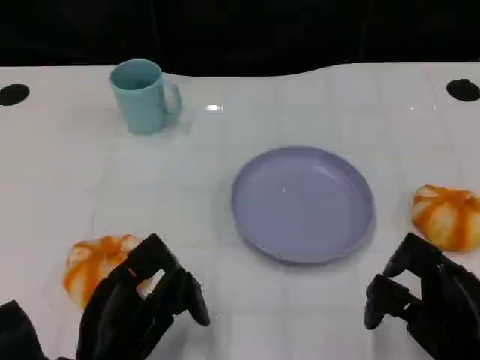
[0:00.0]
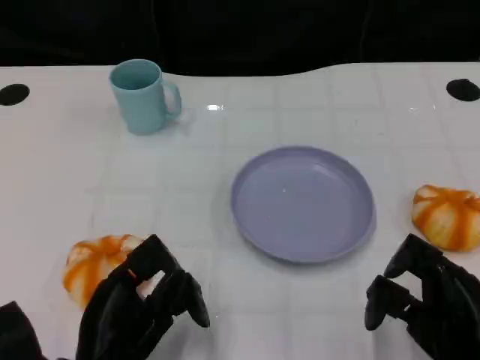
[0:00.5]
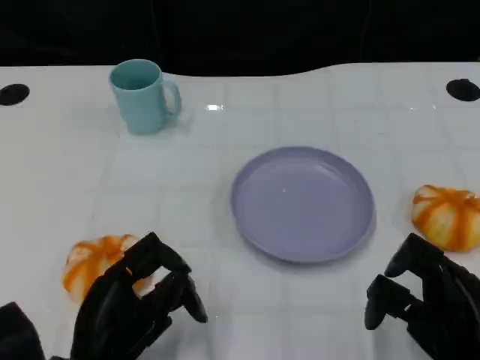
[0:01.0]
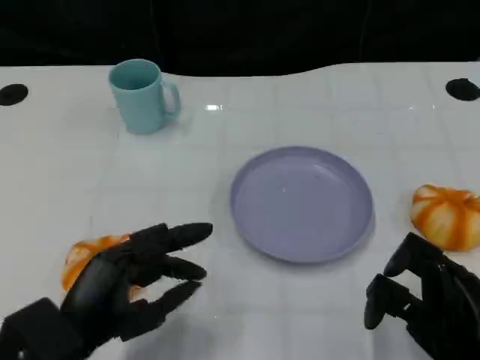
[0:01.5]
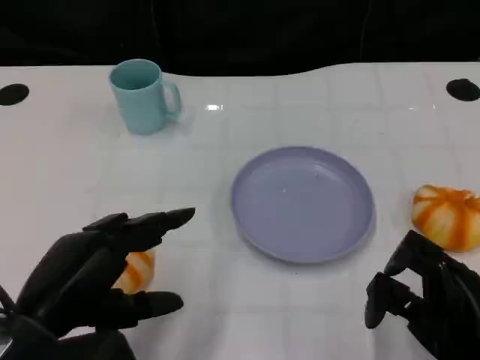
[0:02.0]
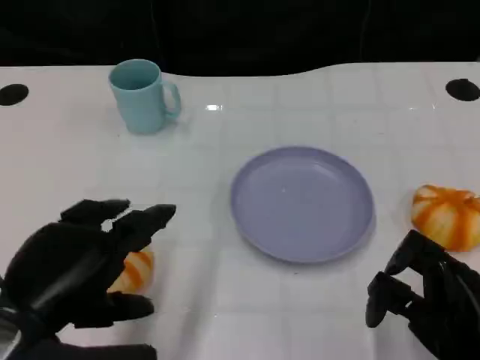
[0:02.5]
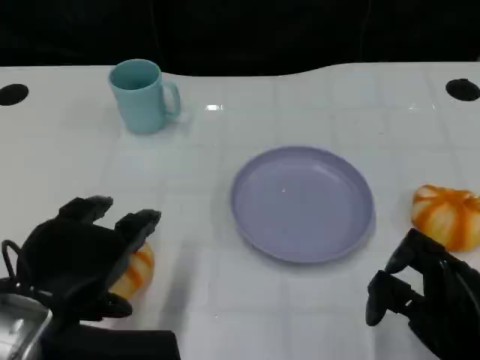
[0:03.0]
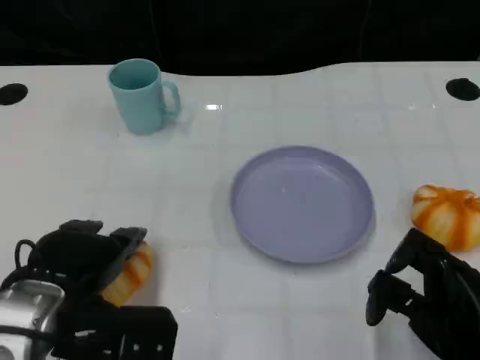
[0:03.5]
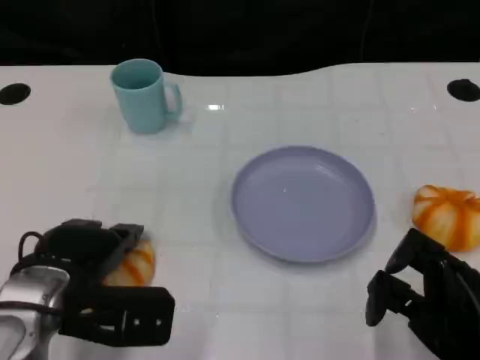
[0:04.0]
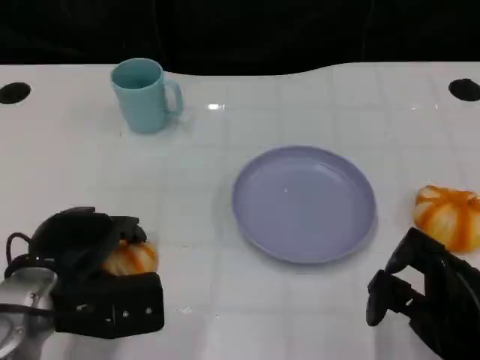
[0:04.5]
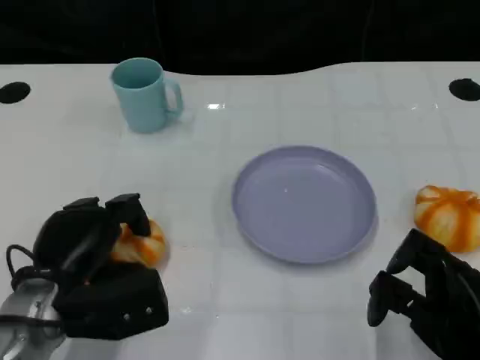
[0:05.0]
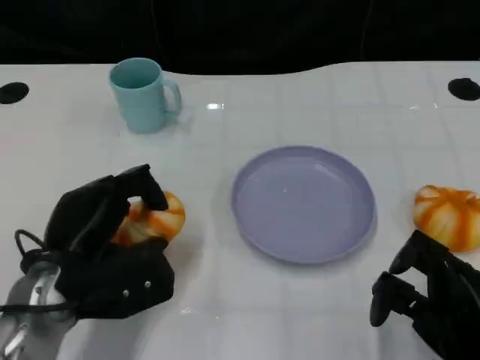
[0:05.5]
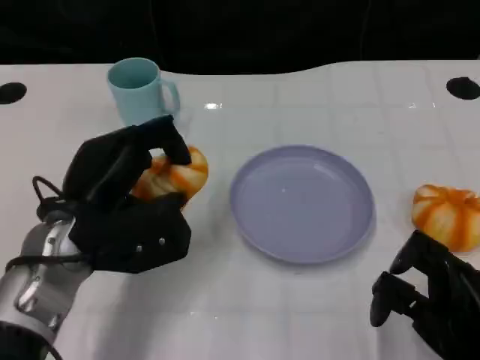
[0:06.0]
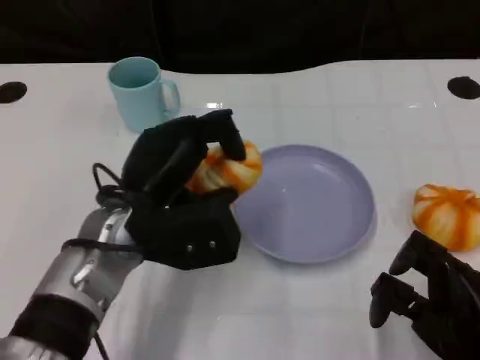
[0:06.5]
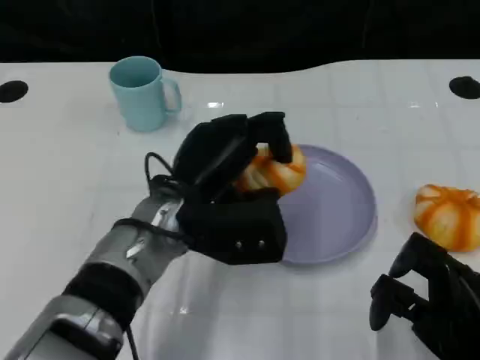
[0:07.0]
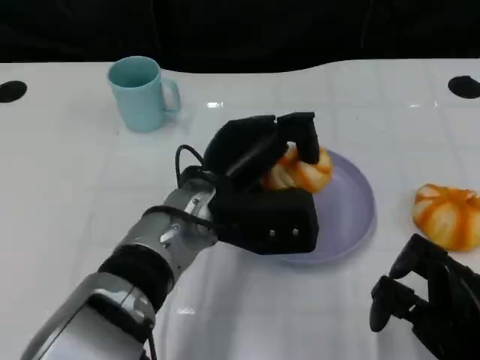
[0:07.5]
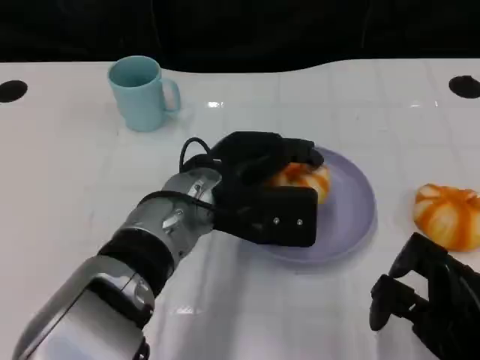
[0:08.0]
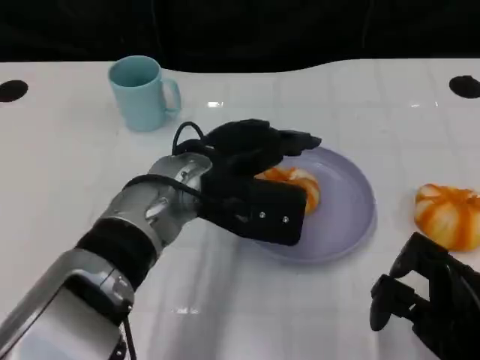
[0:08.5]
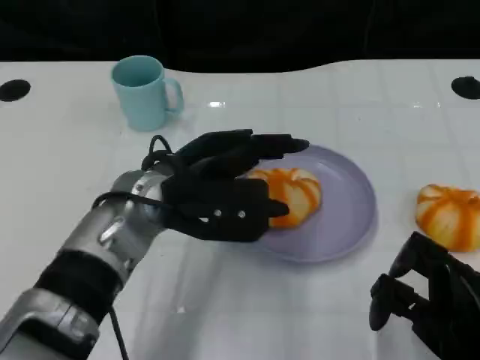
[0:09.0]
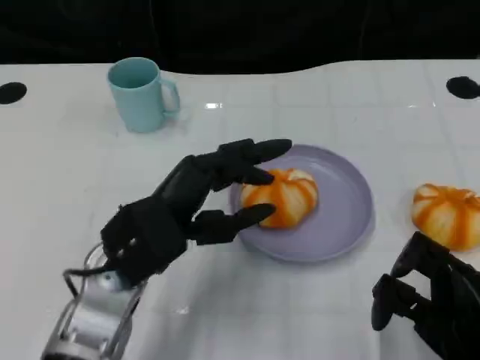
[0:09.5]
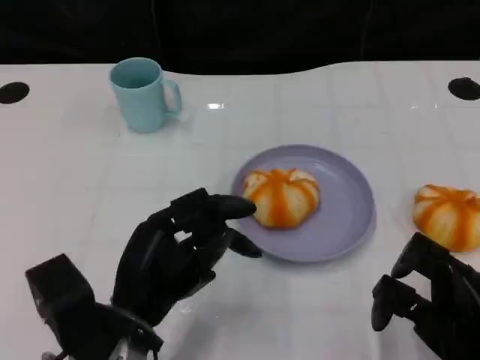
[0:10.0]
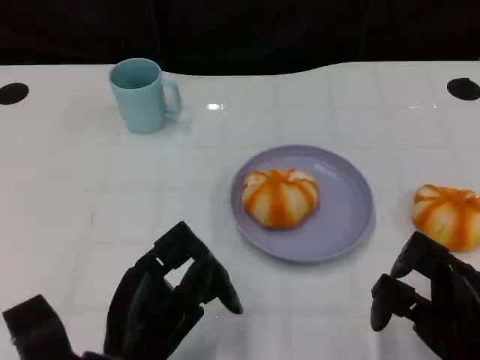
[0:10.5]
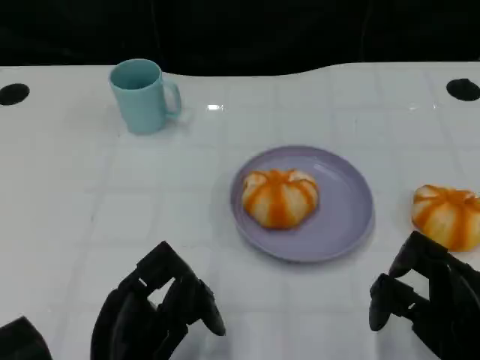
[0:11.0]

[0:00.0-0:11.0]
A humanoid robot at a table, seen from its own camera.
Task of the whole recording: Grasp the bread from the table and place it into the plate.
0:00.0 to 0:02.0: The left hand heads upward, covering roughly 10 cm.
0:02.0 to 0:03.5: The left hand travels forward by approximately 5 cm.
0:05.5 to 0:07.5: The left hand travels to the right by some 15 cm.
0:07.5 to 0:09.0: The left hand heads to the left, covering some 5 cm.
0:09.0 to 0:11.0: The left hand moves backward and downward, some 20 cm.

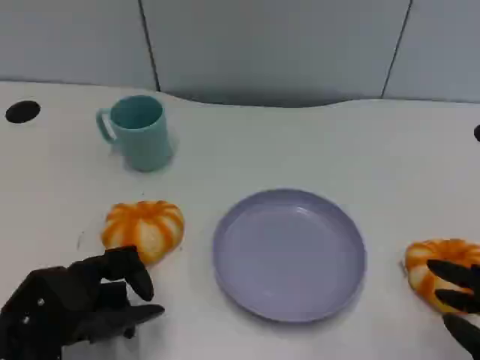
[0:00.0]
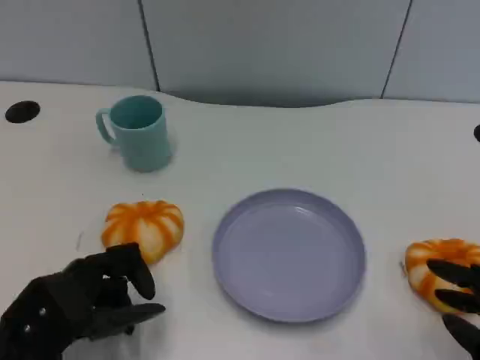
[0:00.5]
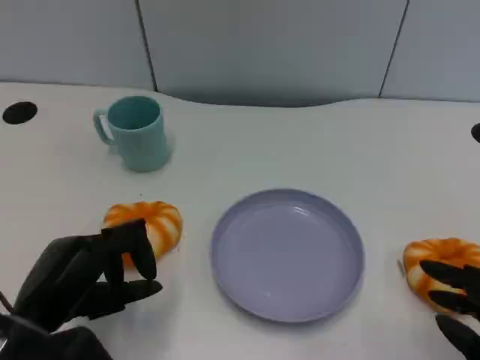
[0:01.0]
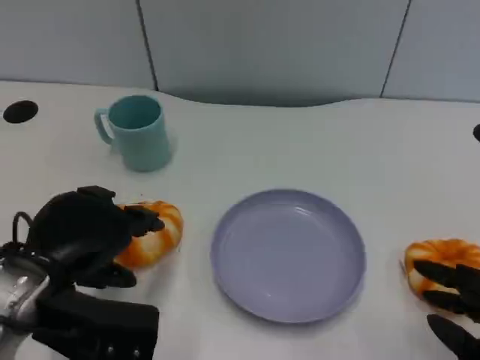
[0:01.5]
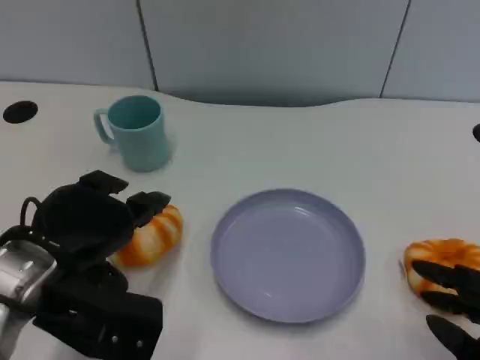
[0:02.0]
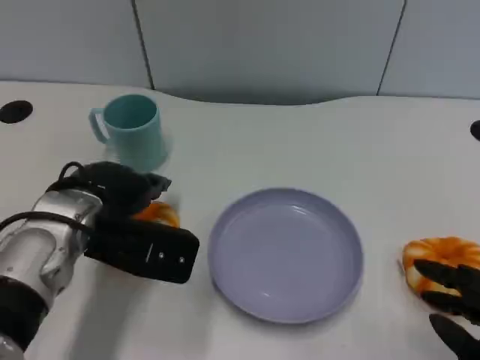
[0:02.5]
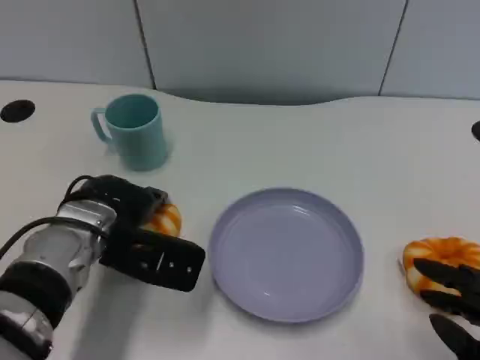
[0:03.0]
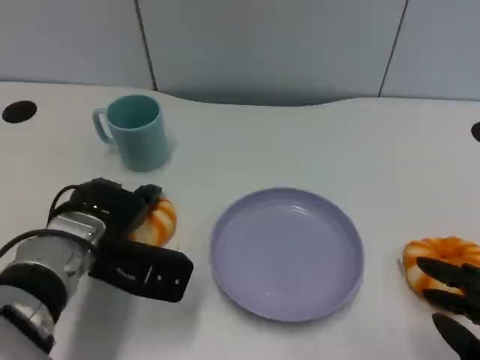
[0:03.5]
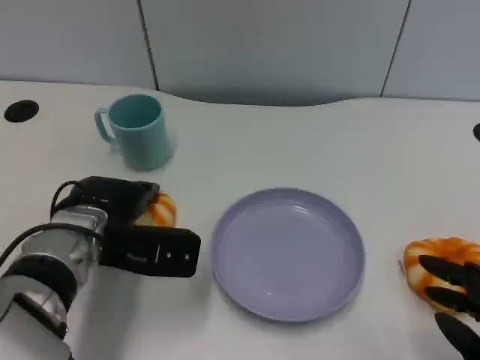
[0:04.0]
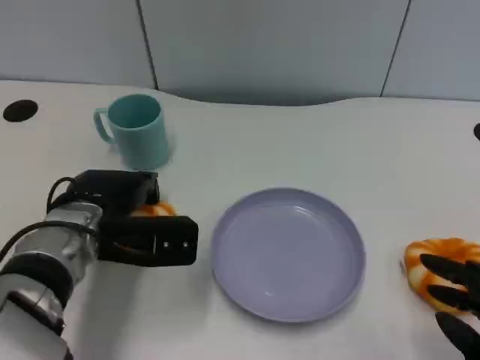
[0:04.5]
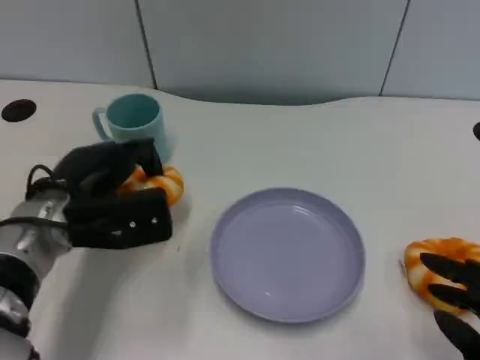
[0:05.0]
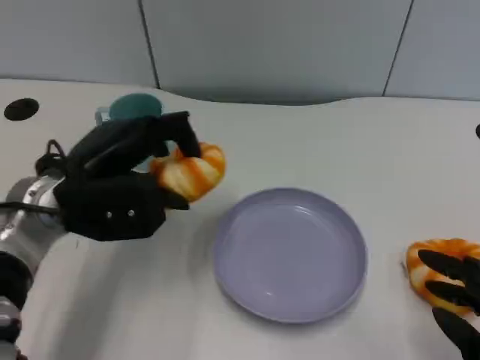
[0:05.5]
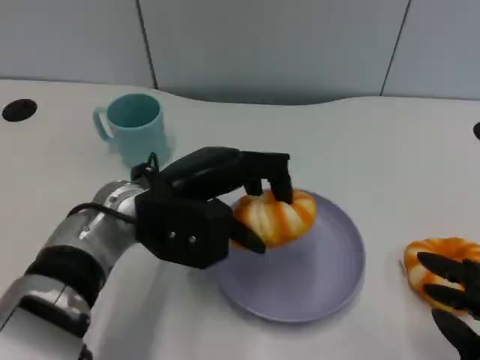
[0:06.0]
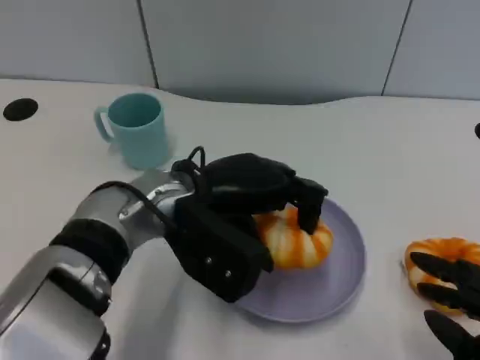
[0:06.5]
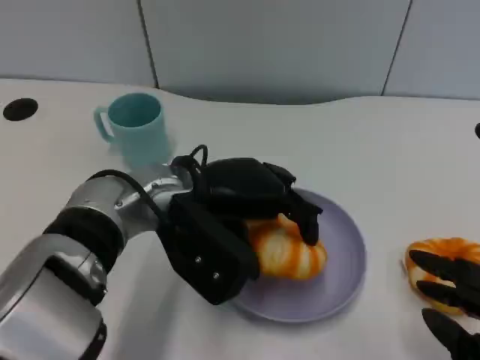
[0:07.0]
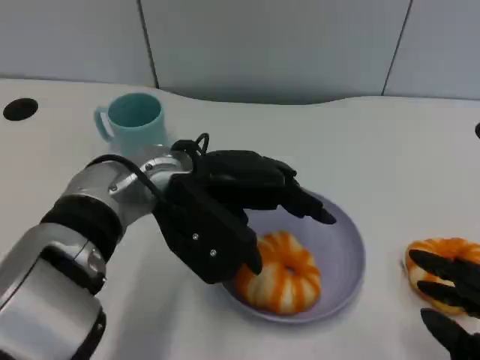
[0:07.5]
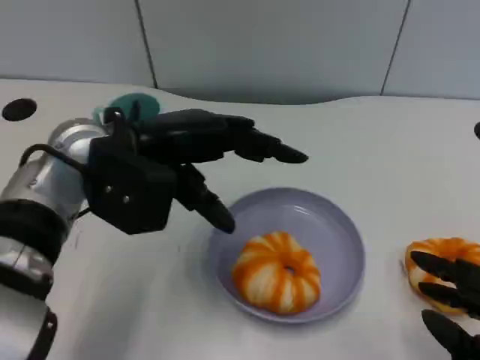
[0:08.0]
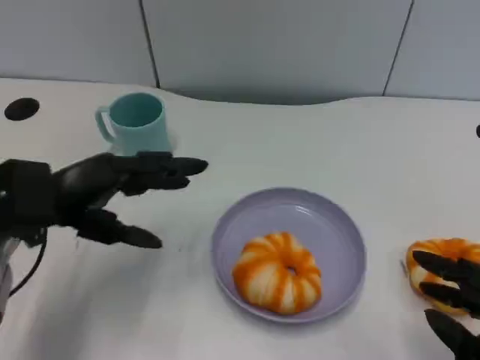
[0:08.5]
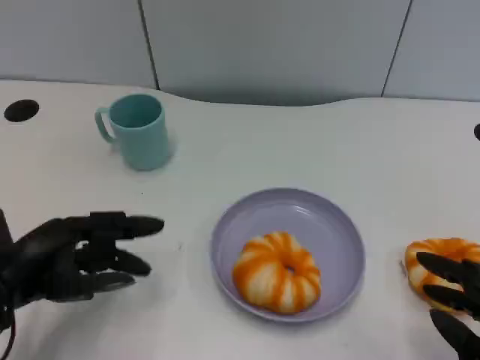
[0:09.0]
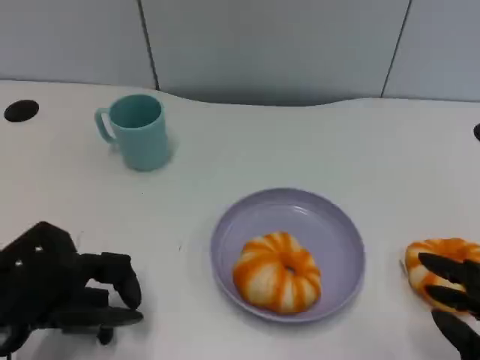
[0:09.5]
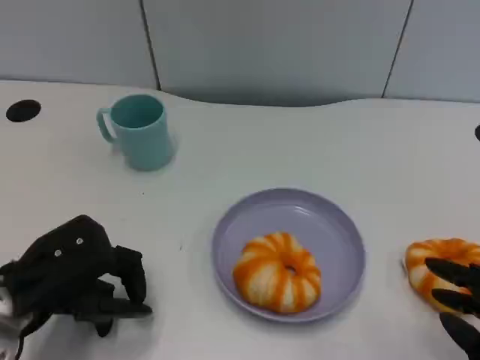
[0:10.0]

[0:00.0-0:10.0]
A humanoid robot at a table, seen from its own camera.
Task of the whole recording: Grasp the bread from the table and place it into the plate.
0:00.0 to 0:02.0: The left hand is displaced upward by approximately 10 cm.
0:02.0 to 0:04.0: The left hand shifts approximately 10 cm forward and downward.
0:04.0 to 0:06.0: The left hand shifts approximately 10 cm to the right and upward.
0:06.0 to 0:08.0: The left hand shifts some 5 cm upward.
0:08.0 to 0:10.0: The left hand travels downward, backward and to the left by roughly 15 cm.

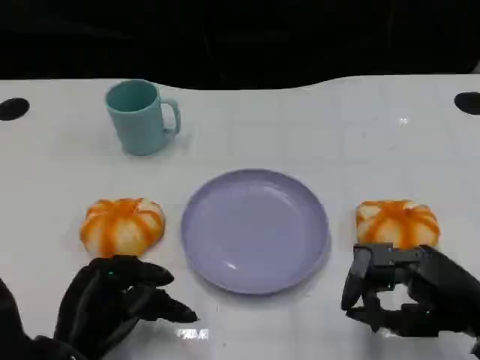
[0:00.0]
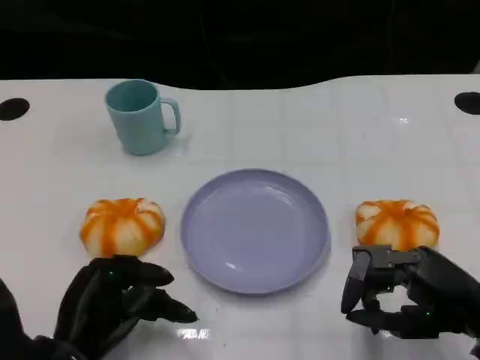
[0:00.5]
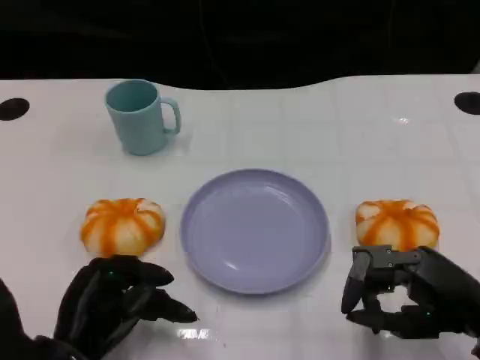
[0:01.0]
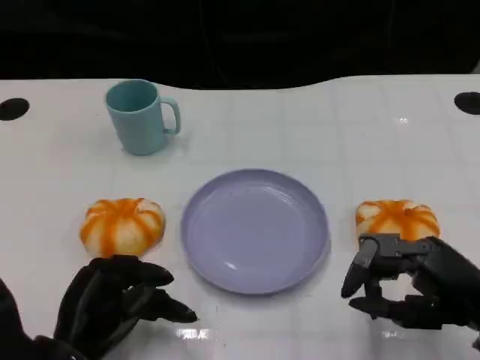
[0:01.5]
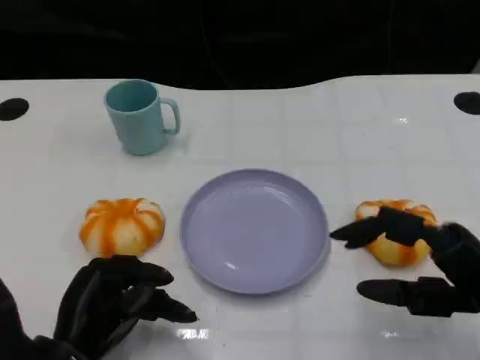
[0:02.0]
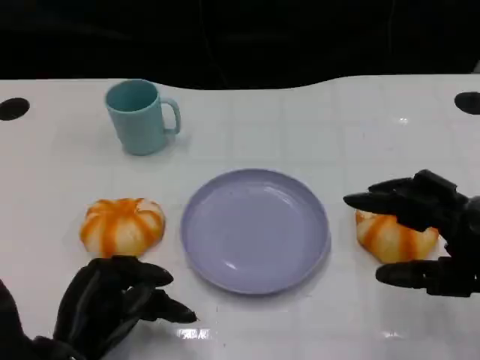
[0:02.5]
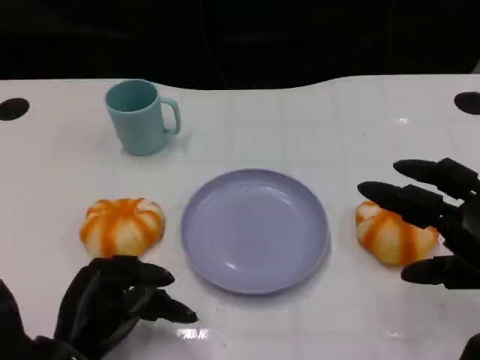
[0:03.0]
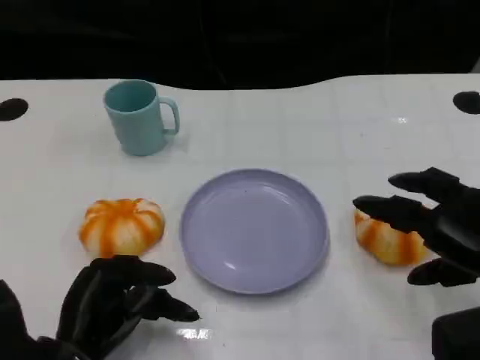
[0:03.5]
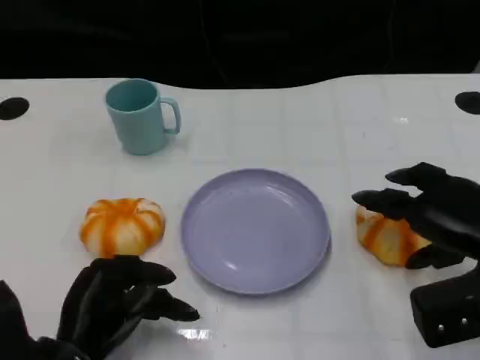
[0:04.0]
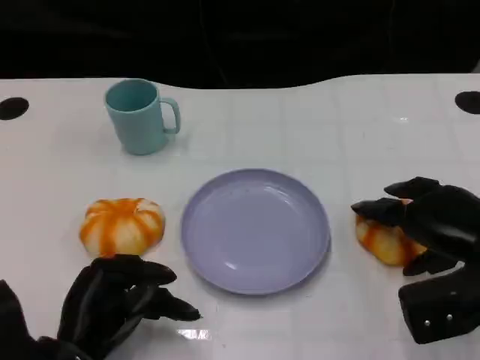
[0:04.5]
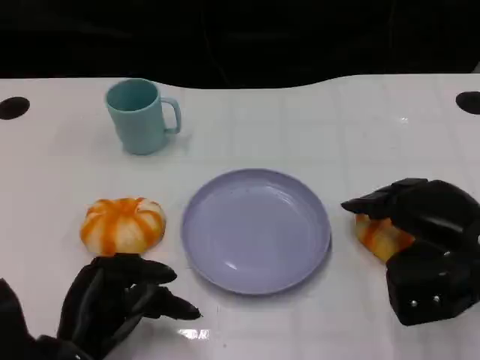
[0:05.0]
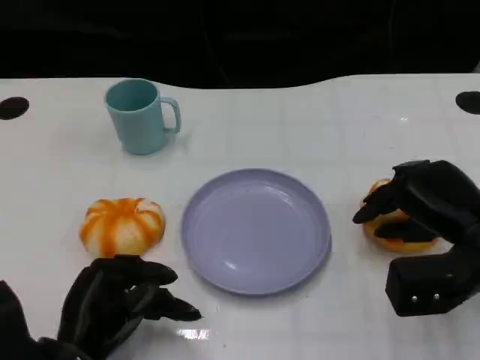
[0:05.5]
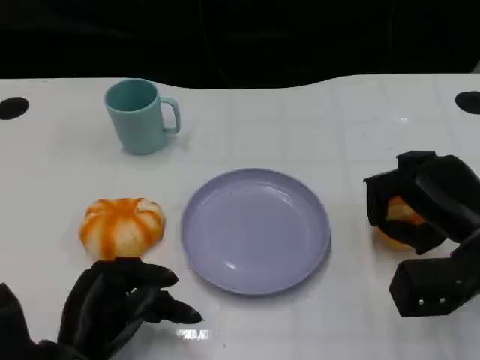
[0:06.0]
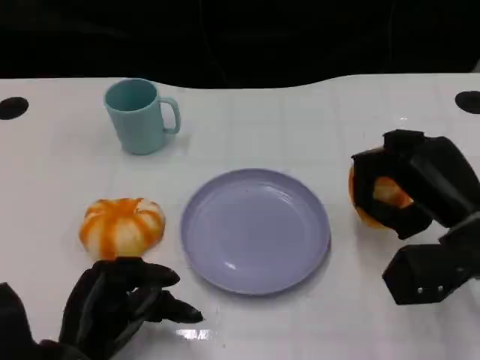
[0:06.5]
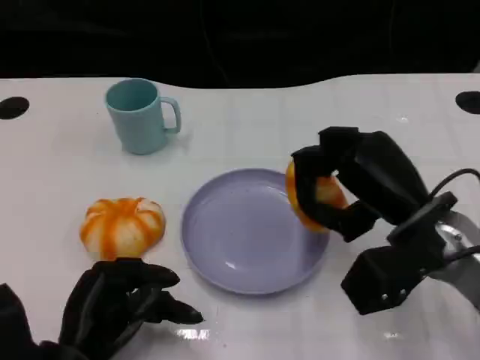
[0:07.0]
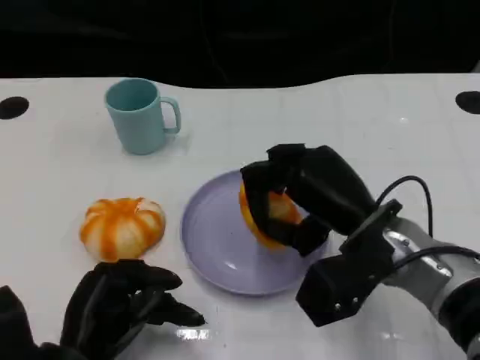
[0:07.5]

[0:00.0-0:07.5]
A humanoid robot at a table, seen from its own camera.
Task of the whole recording: Grasp the bread from the table and place it into the plate.
0:02.0 to 0:04.0: The right hand goes roughly 5 cm forward.
0:04.0 to 0:05.5: The hands stay close to where they were, moving slightly.
0:05.5 to 0:07.5: The right hand travels to the left by approximately 10 cm.
